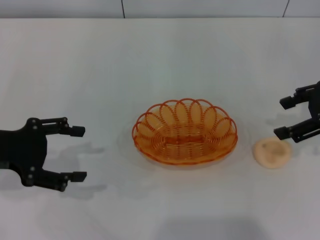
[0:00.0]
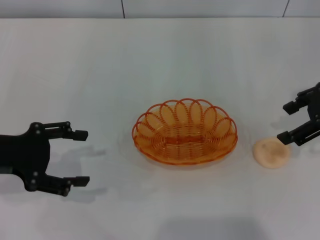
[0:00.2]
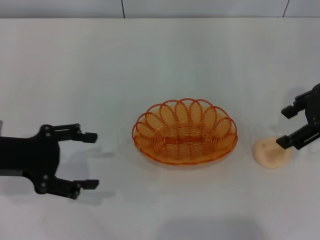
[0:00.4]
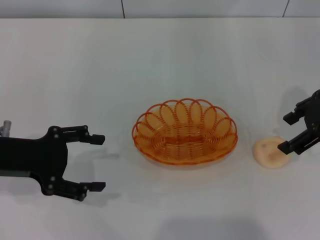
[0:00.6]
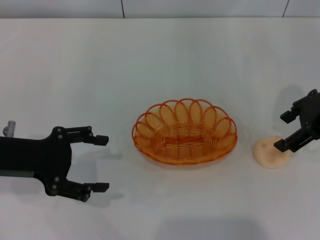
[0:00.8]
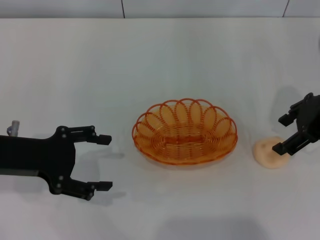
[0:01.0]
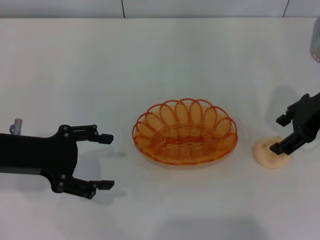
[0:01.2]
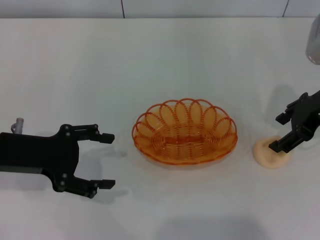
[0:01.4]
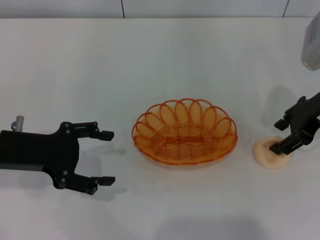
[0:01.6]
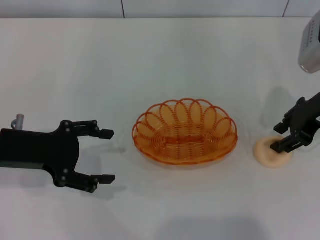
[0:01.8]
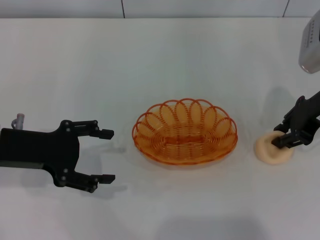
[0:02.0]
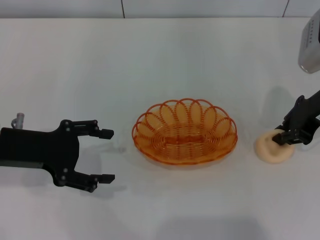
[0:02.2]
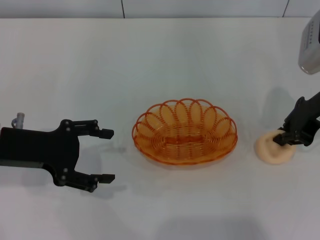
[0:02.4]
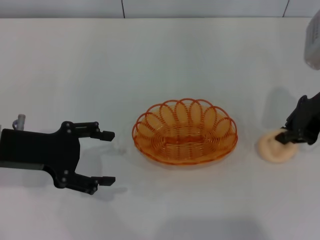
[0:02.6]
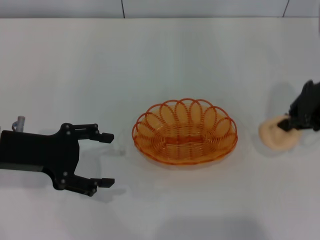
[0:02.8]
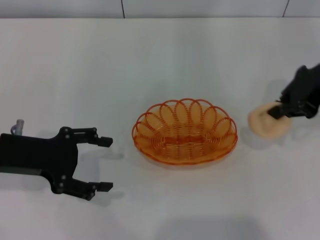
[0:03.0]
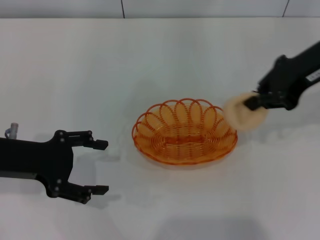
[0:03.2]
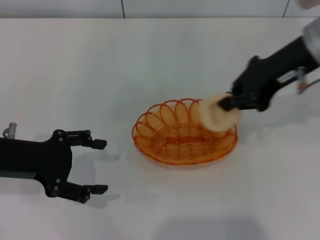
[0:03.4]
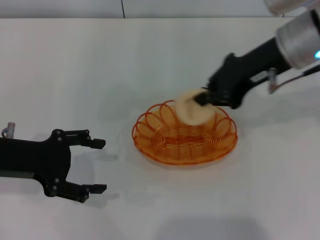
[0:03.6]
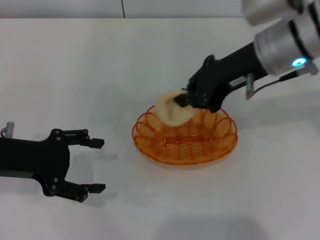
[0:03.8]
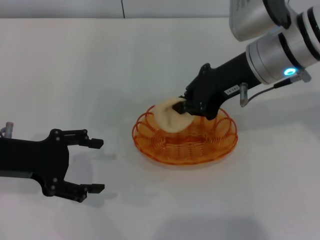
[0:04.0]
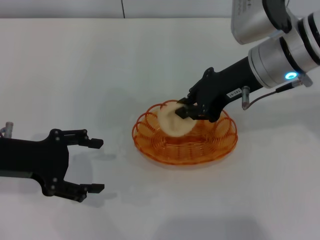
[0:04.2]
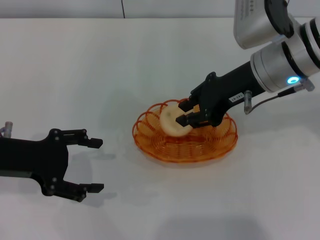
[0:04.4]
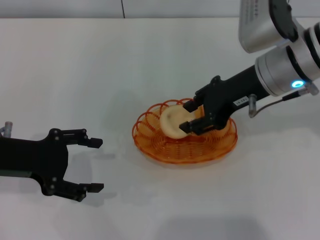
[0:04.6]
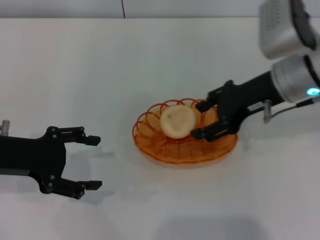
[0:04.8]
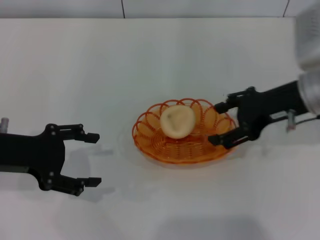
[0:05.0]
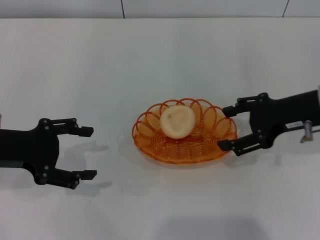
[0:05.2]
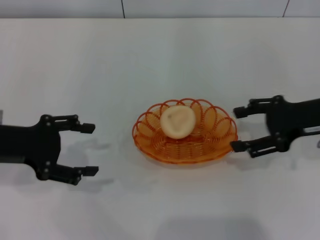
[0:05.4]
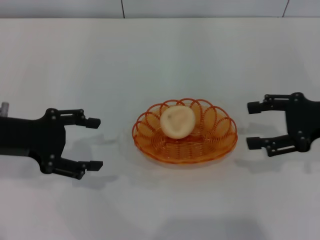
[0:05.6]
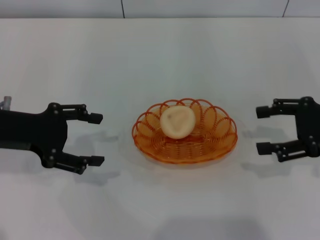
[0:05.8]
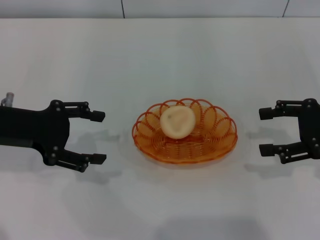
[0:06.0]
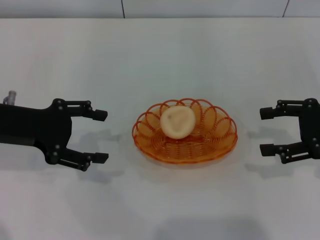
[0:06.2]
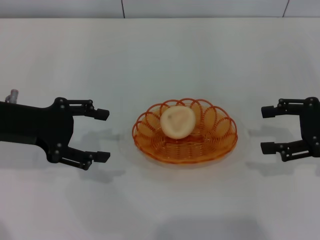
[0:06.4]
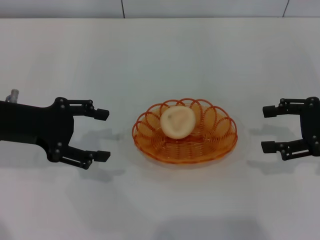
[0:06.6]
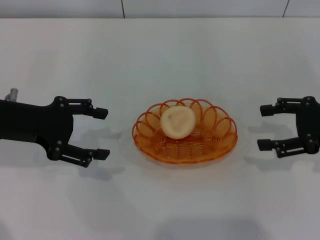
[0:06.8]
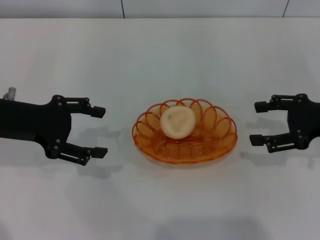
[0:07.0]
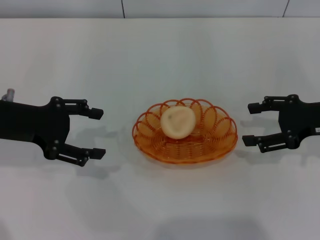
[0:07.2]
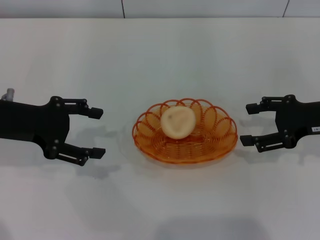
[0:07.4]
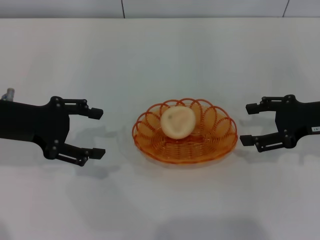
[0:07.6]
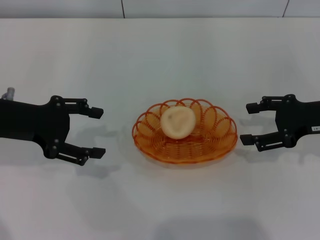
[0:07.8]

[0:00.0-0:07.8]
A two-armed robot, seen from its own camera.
Step, 0:00.0 to 0:02.8: Pick up the egg yolk pastry with the right gripper.
Step, 0:03.0 to 0:04.6: Place the egg yolk pastry into the basket with the right gripper.
0:00.0 to 0:01.6: The right gripper changes place by about 5 cm.
0:01.6 to 0:03.2: The right gripper moves upward, some 5 cm, and closes up.
0:03.2 to 0:04.6: The right gripper goes roughly 10 cm to the left and downward.
0:04.6 to 0:06.2: The right gripper goes some 15 cm to the right, and opens.
0:06.2 to 0:07.8: The grippers move only a little.
